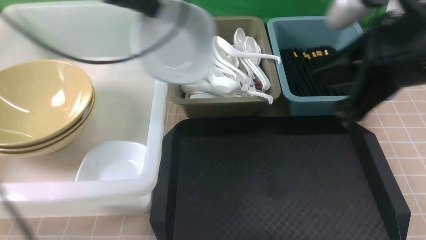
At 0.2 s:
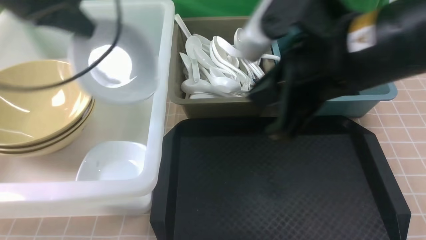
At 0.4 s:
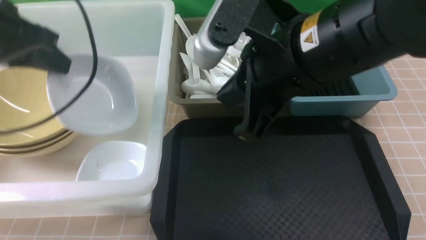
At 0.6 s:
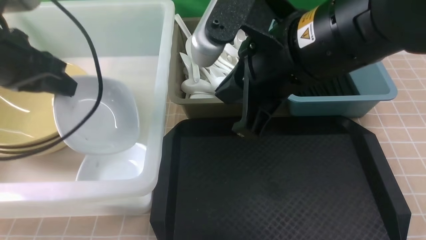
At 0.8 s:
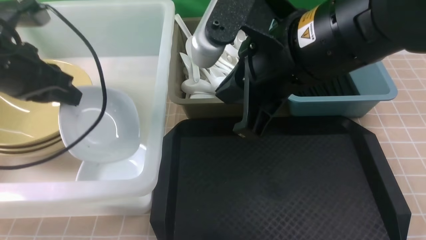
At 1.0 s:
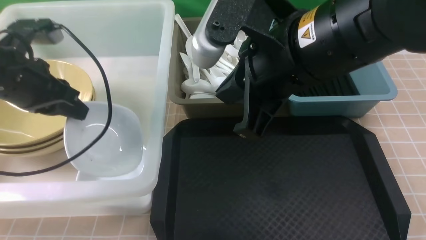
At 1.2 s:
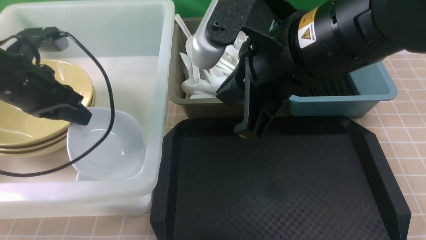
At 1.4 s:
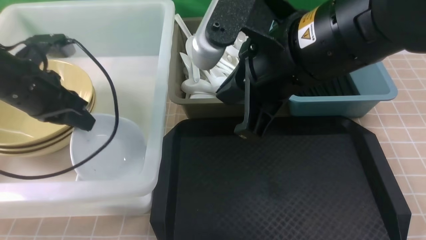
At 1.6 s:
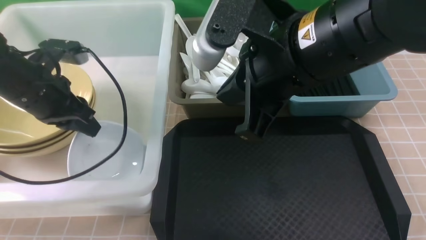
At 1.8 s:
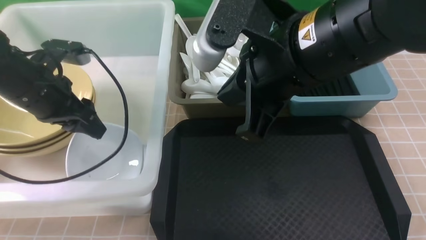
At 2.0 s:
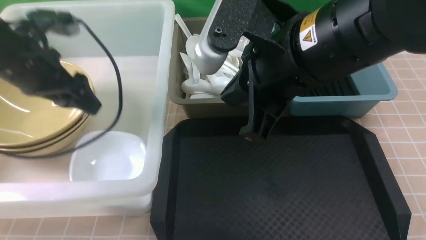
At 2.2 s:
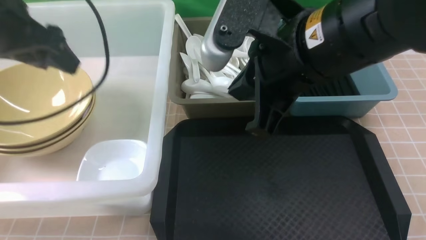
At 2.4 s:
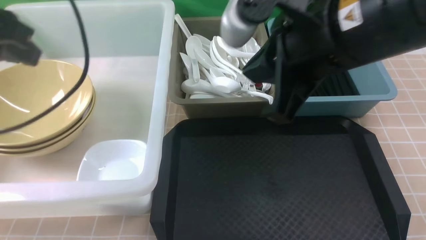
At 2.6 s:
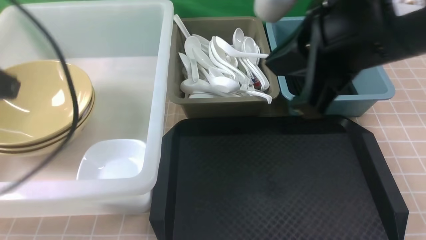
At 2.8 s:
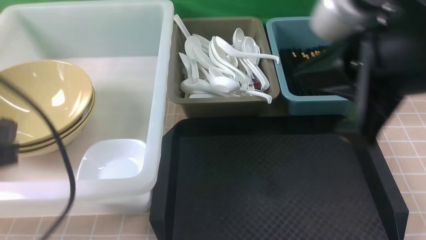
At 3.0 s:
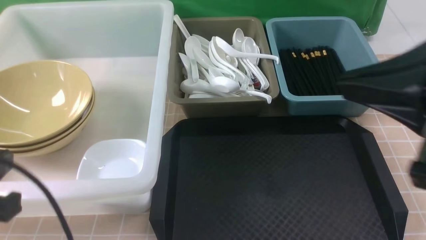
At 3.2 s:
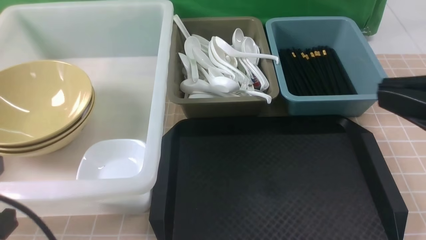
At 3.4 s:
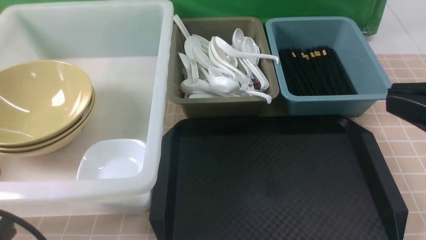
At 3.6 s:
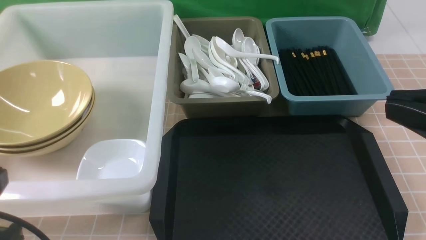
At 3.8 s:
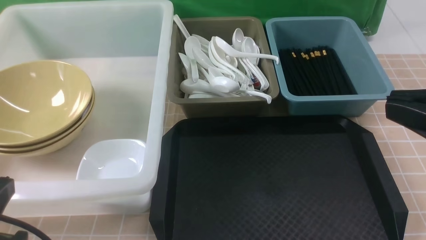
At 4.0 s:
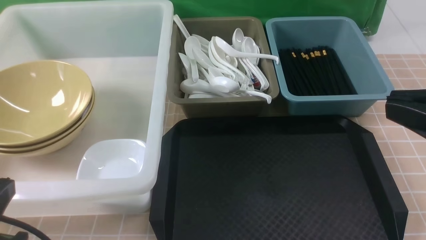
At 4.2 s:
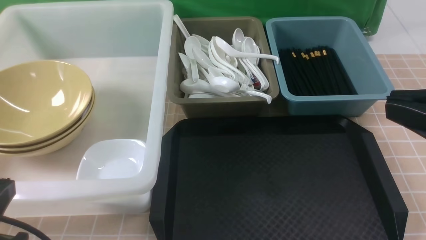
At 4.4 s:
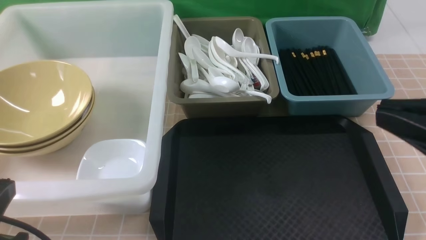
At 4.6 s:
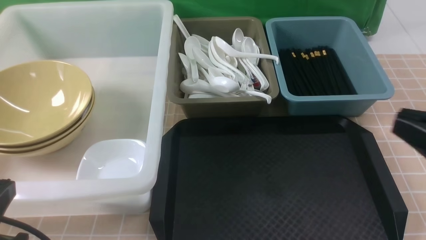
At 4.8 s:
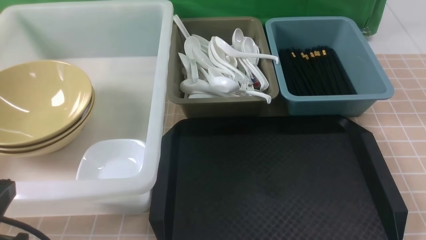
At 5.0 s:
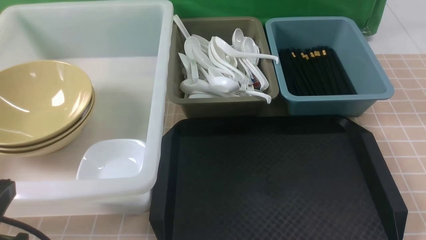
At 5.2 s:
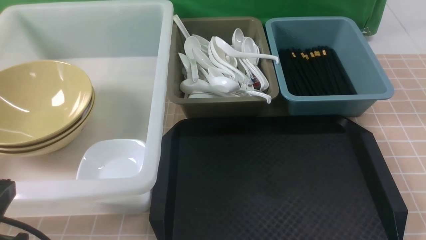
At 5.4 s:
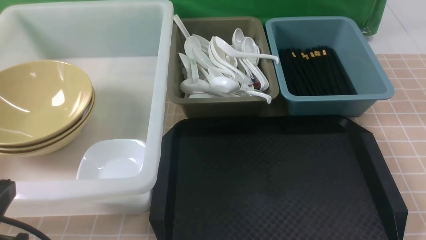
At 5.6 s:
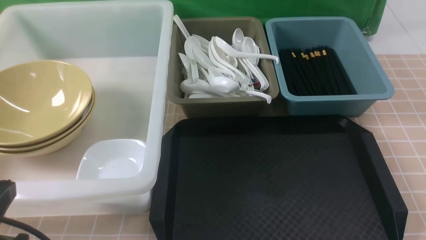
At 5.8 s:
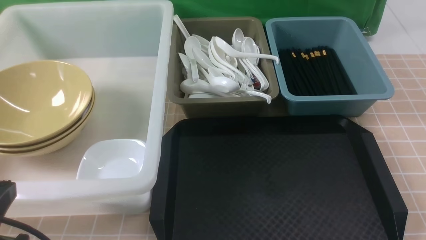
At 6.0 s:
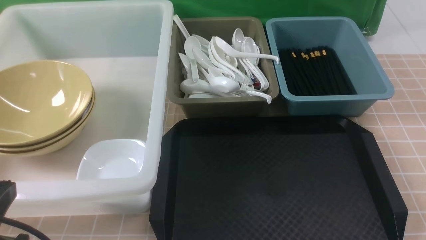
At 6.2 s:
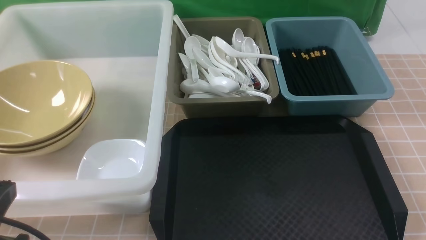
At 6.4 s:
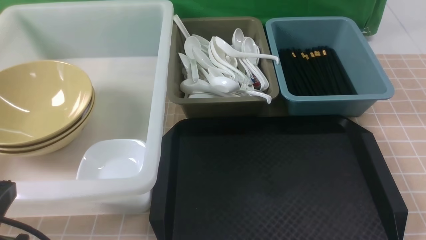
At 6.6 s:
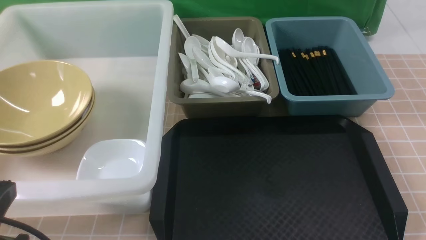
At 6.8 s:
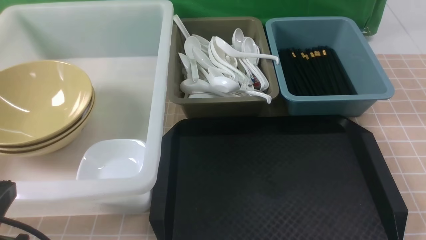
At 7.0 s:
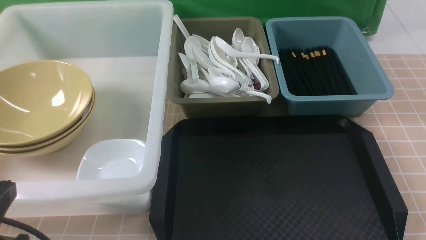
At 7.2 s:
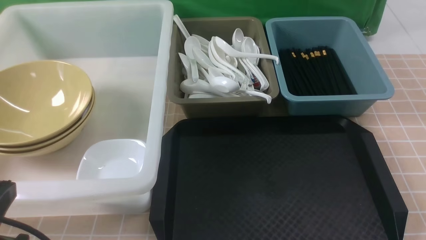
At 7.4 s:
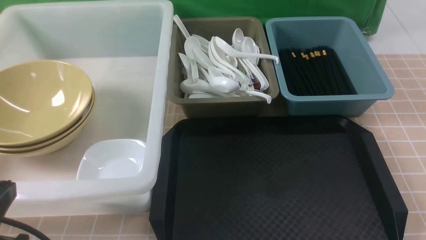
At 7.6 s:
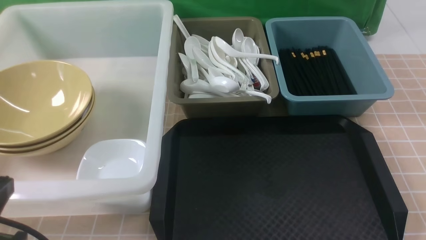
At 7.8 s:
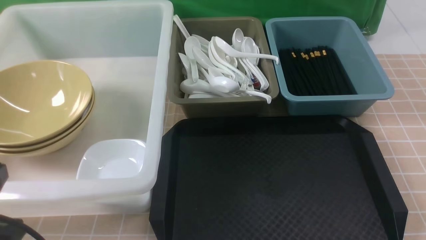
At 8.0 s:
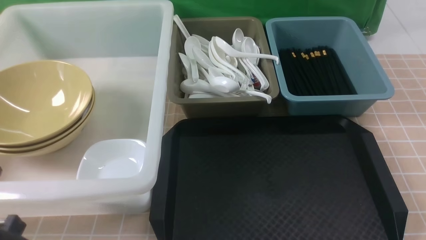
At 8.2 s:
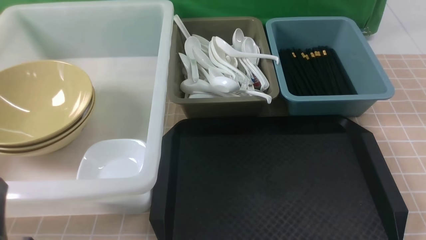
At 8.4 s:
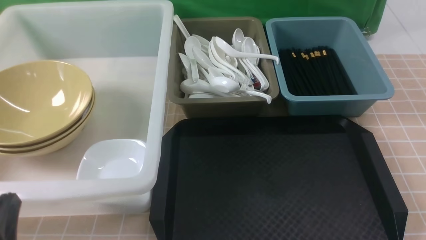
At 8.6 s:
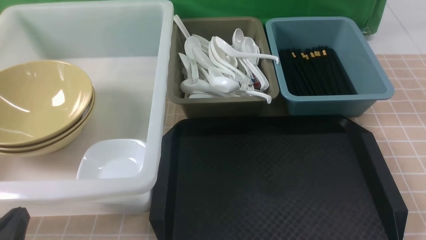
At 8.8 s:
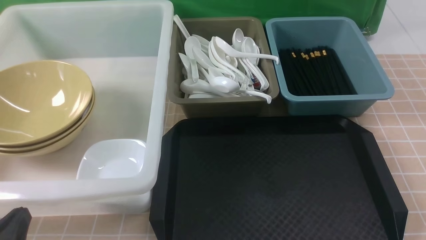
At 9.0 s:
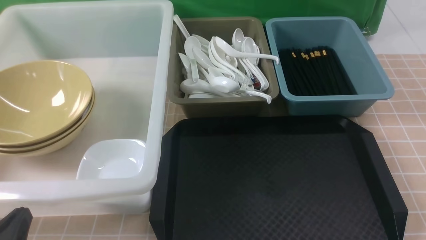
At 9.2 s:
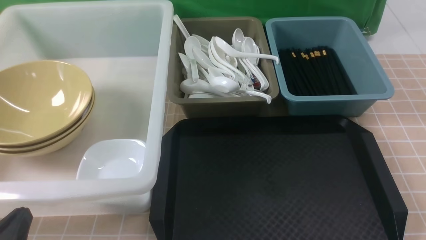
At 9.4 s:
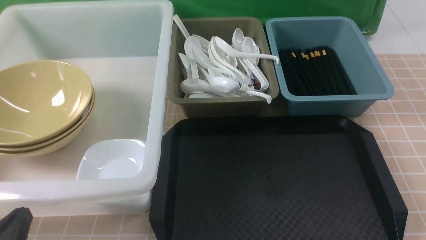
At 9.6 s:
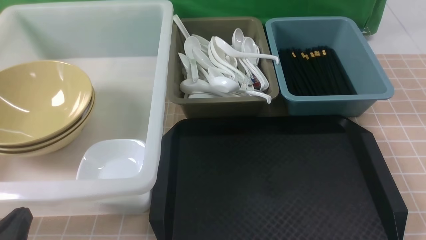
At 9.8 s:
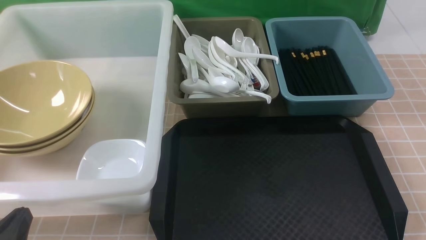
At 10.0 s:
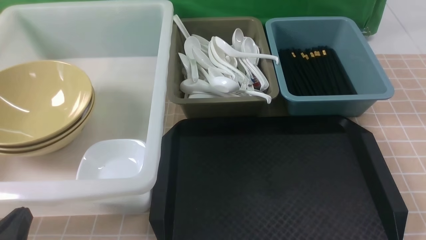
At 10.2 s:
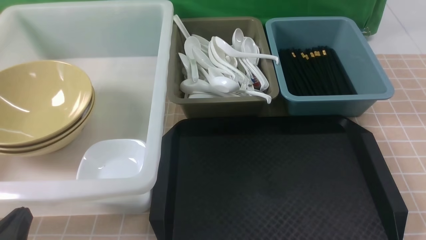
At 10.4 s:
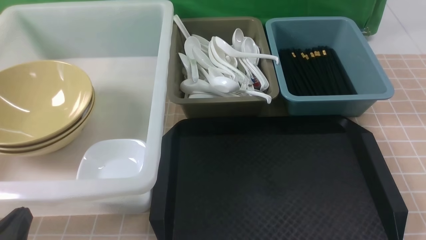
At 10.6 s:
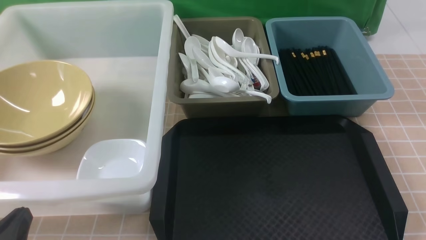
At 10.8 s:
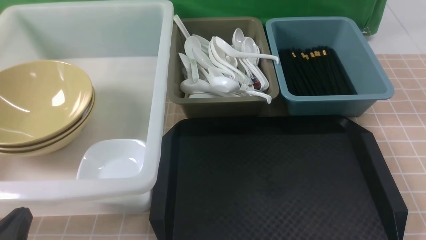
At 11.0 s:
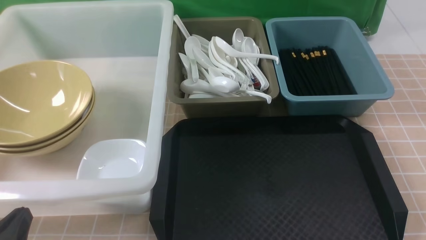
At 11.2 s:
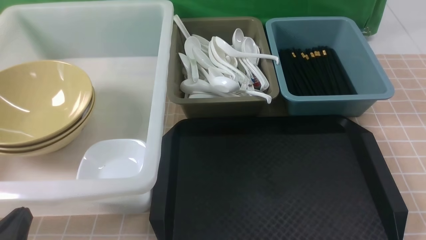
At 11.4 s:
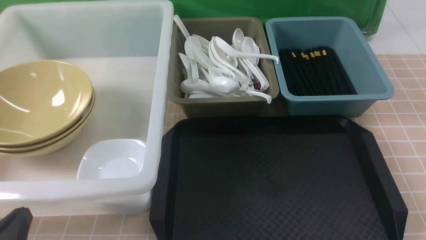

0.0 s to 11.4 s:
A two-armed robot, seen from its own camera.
Task of the whole recording: on brown table put chopsticks spoon bowls plates into blue grey white boxes.
Step, 0.0 to 2.0 s: use the left arm to put the plate into the large storage box on the left.
0.0 to 1.4 s: The left gripper shifts about 15 cm downward and to the left; the right gripper moves to the left, roughly 10 cm.
1.4 to 2.8 s: The left gripper is displaced backward and upward by roughly 20 cm, and opens, then closes again. Meanwhile the right gripper travels to the right and backward by approximately 10 cm.
2.8 to 4.2 s: The left gripper shifts roughly 10 cm downward and backward; the right gripper is displaced backward and to the right by approximately 10 cm.
4.2 to 5.6 s: The right gripper goes approximately 25 cm downward and to the right.
5.6 to 7.2 s: Both grippers stay about where they are.
7.2 to 8.6 s: The left gripper heads downward, covering about 10 cm.
8.6 to 11.4 s: The two grippers keep their place.

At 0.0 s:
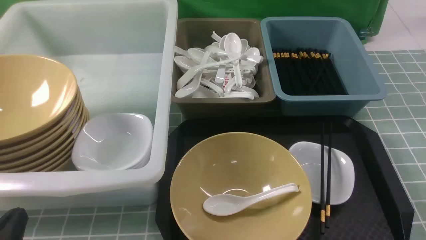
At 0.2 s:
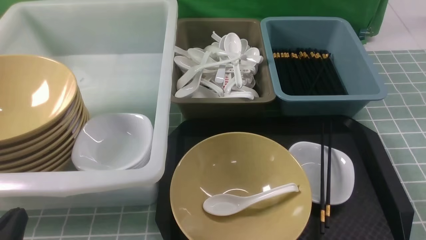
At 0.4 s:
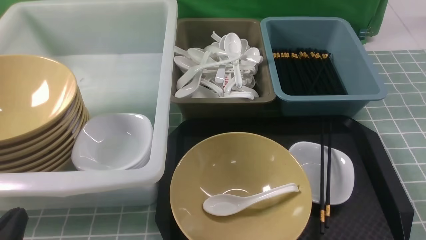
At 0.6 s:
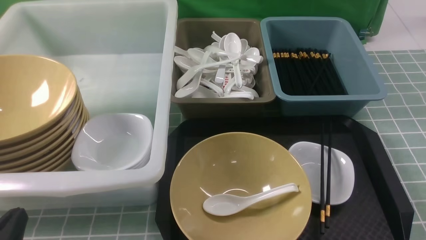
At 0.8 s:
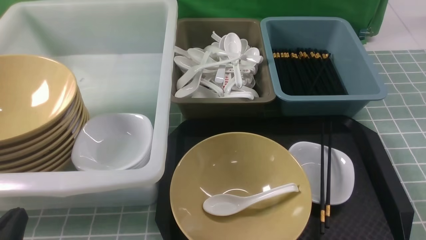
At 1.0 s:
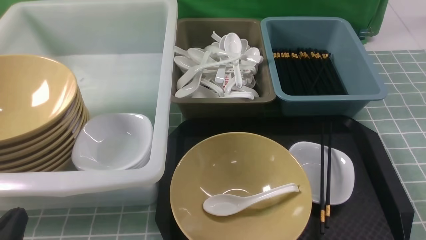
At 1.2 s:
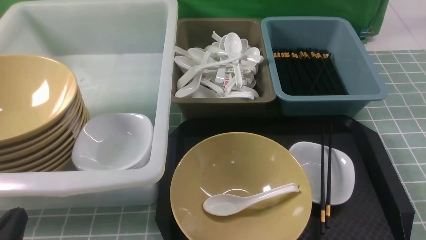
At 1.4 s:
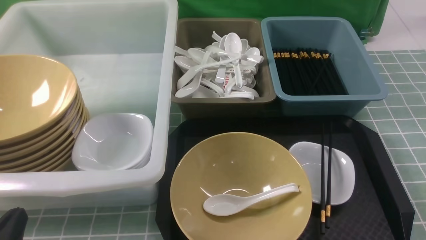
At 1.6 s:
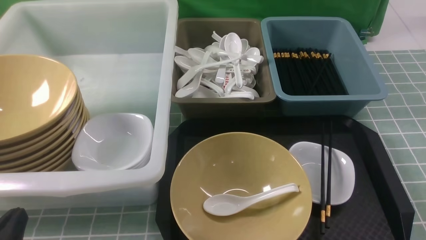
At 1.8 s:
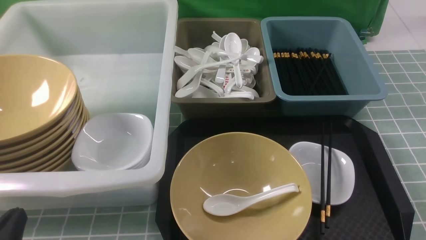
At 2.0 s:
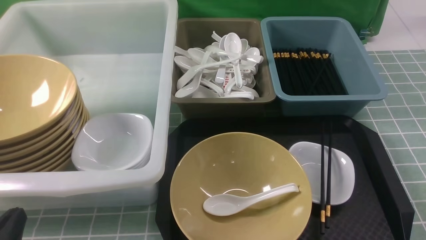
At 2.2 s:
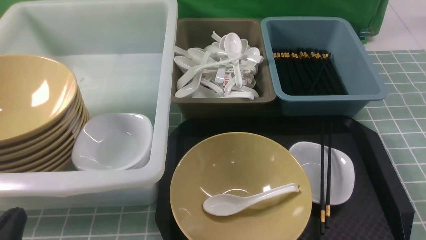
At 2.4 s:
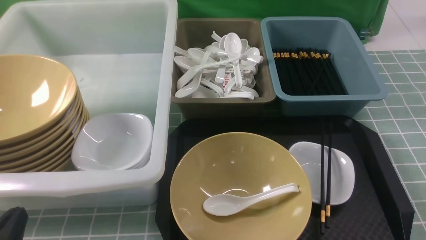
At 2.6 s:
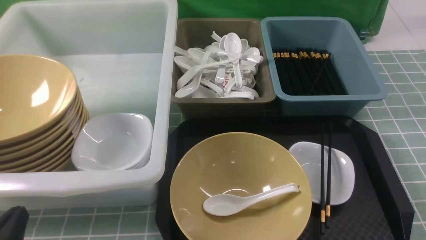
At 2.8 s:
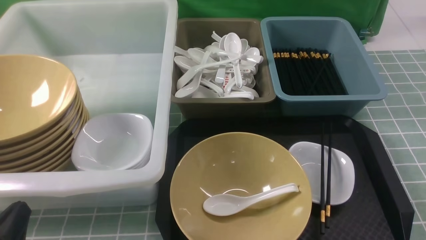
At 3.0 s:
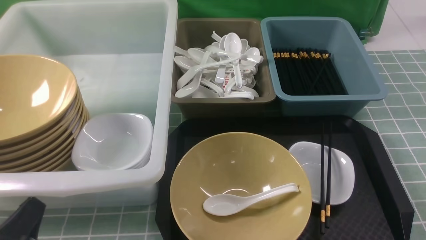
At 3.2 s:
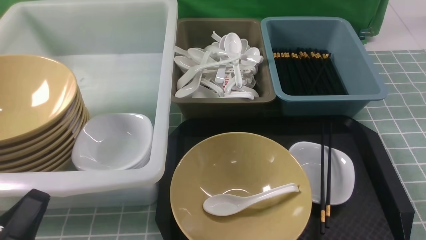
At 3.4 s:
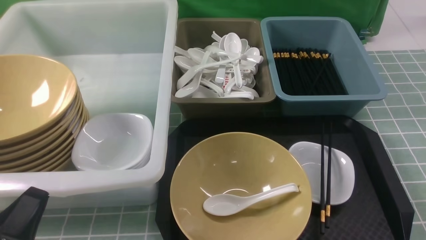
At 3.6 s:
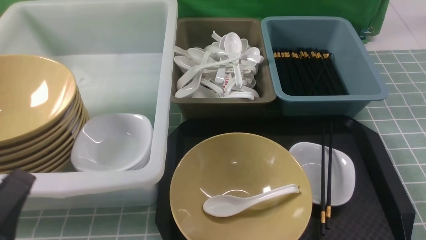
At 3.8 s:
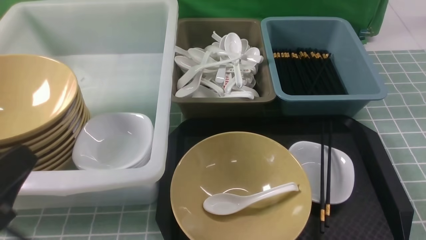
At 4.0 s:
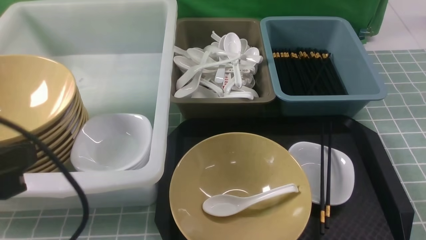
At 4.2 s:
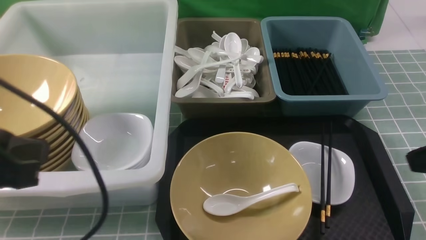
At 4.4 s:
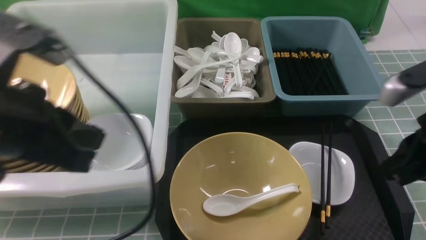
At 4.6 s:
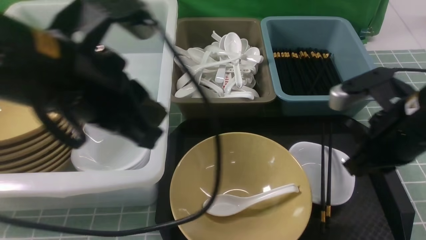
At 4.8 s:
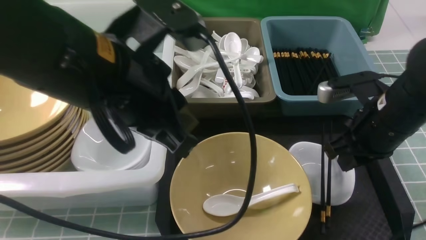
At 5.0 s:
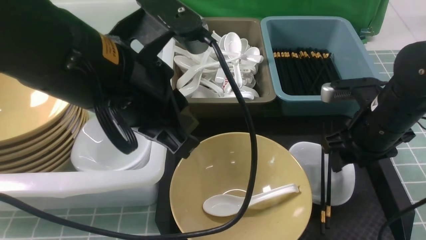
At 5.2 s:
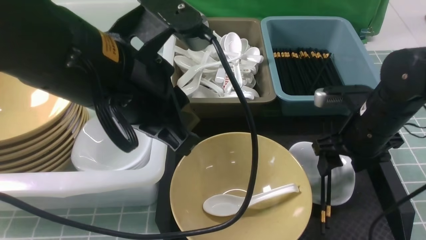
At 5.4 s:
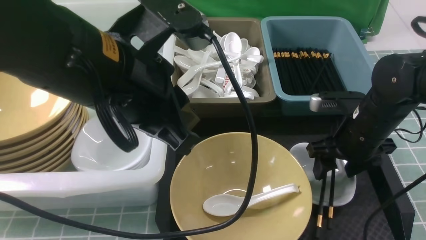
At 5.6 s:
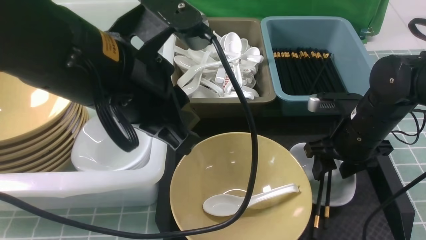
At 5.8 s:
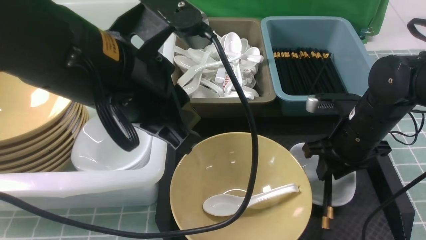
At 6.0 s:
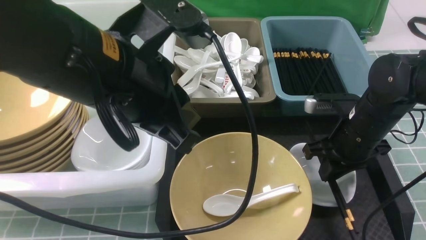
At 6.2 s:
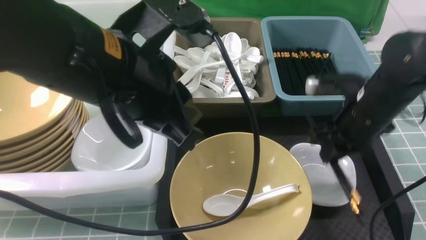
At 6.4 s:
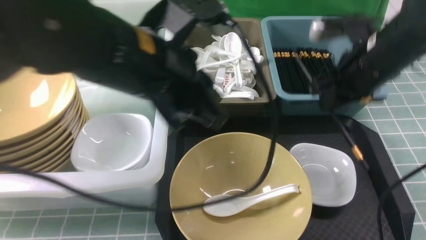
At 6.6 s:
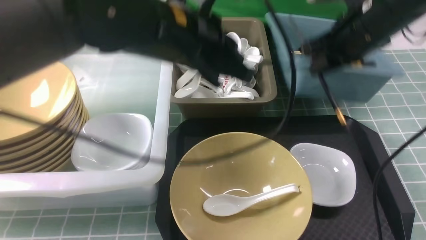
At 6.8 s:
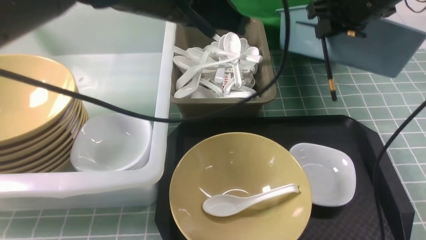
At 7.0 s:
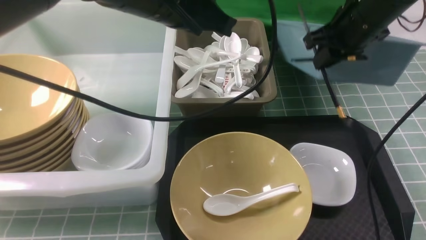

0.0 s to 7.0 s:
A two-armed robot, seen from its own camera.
Task of the whole recording: on blue table put chopsticks spoon bowls plates into blue grey white boxes.
Step, 0.0 to 6.0 s: use the right arm to grab the chopsticks.
0.0 to 1.4 s: Neither gripper changes place.
2.8 to 4.2 s: The left gripper moves upward and forward, approximately 20 cm.
4.2 to 5.6 s: The right gripper is displaced forward, downward and to the left by about 20 cm, and opens. Meanwhile the left gripper travels to the right and forward by about 15 cm.
5.6 to 7.0 s: The right gripper goes roughly 15 cm upward and forward, and closes up; the left gripper goes some 10 cm forward.
